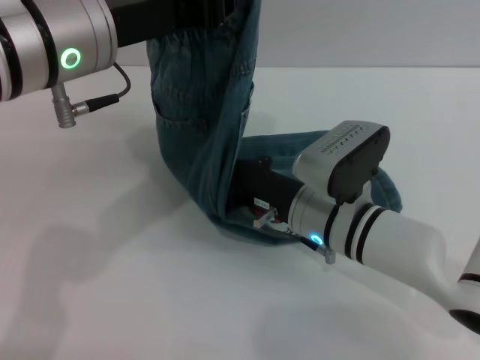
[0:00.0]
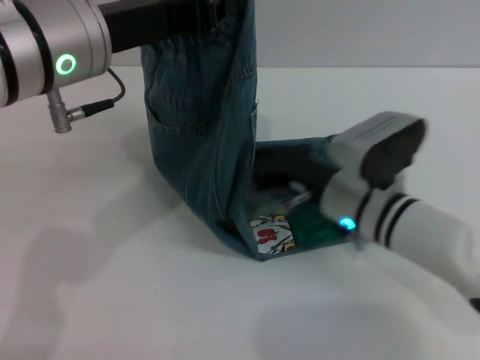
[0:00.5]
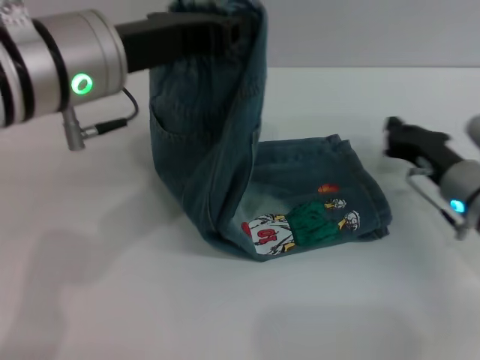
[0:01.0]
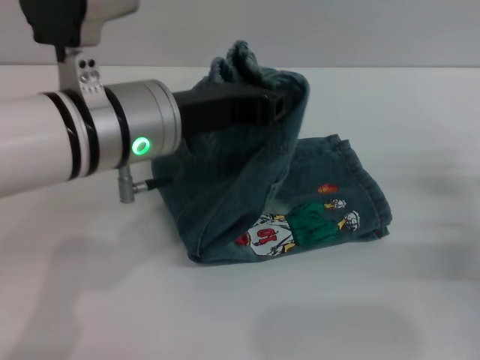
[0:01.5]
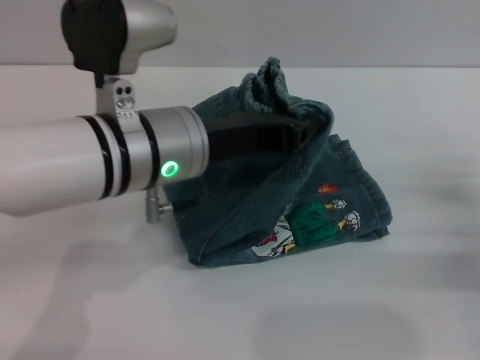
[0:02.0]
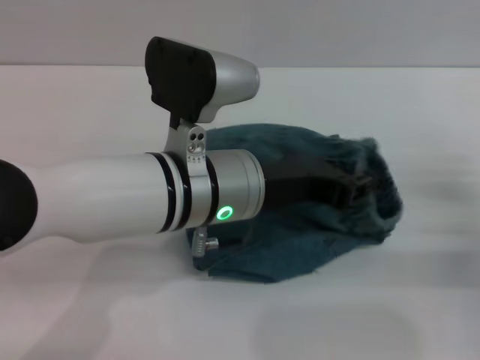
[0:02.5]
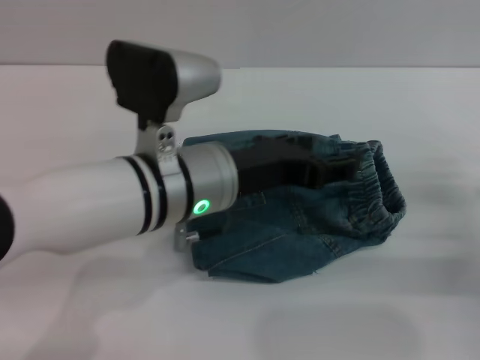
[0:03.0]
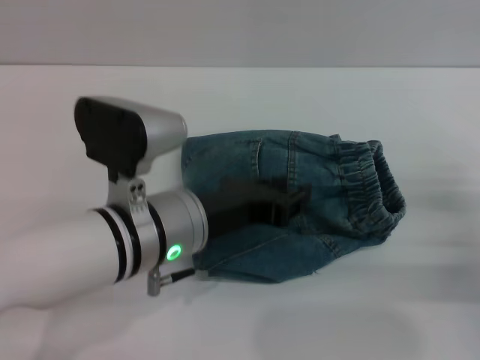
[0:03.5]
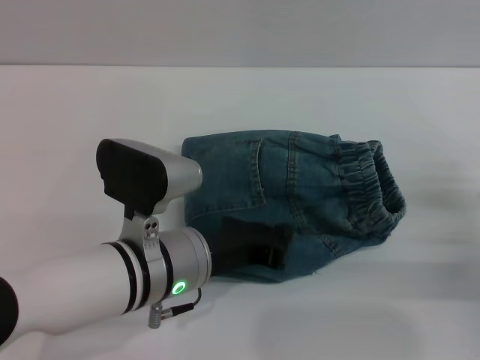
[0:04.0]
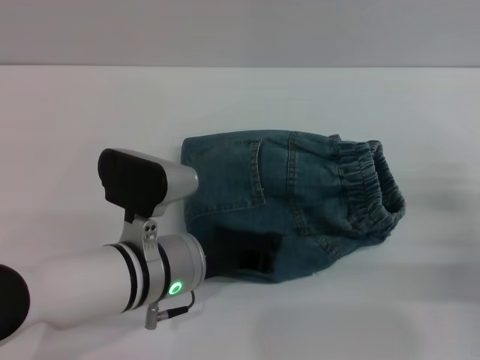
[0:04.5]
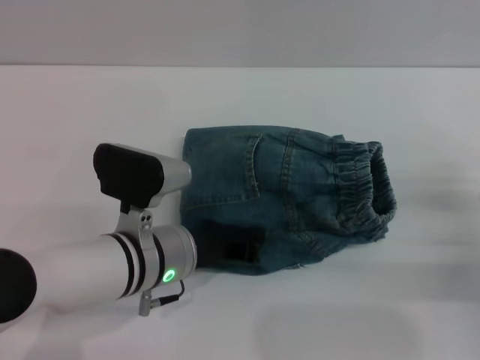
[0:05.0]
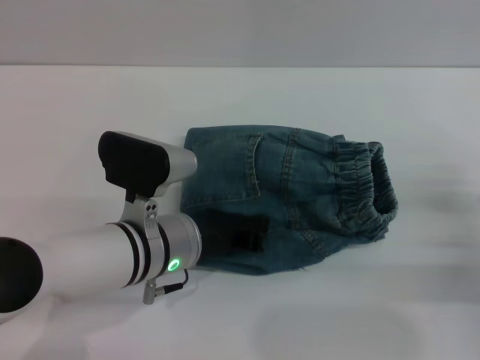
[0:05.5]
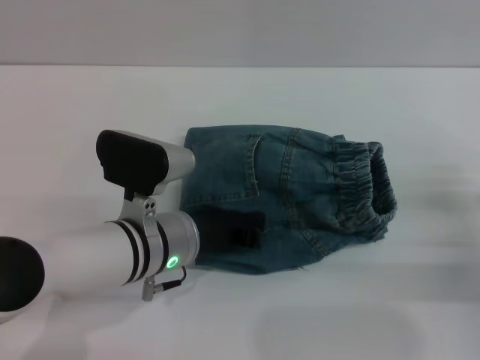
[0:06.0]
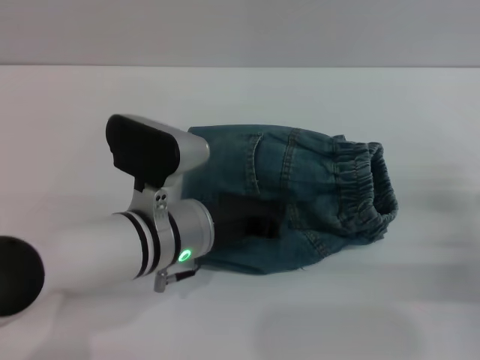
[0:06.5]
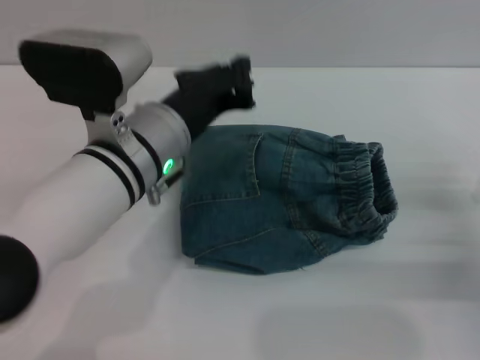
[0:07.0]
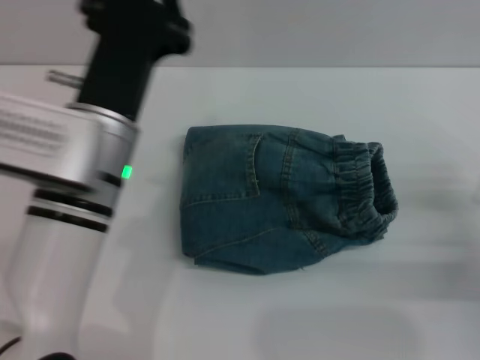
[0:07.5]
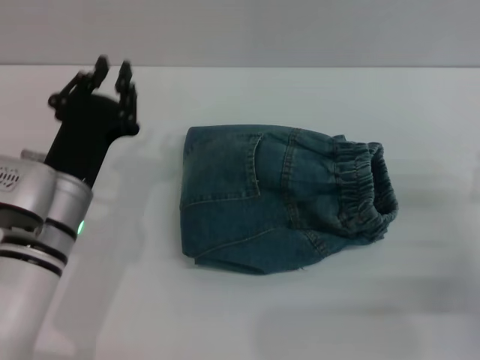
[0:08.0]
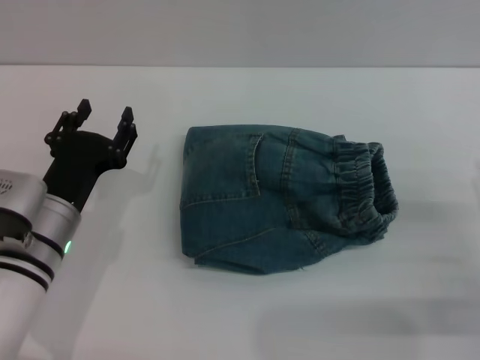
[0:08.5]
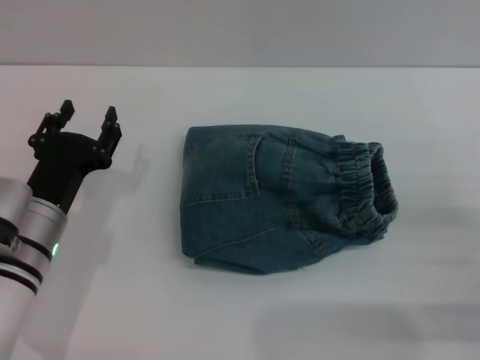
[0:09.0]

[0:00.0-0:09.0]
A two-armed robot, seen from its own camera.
Step, 0:00.0 to 0:03.0: Fold the pants from left to right with the left gripper.
0:00.0 to 0:02.0: The right gripper moves to the right, roughly 25 cm, while the left gripper heads downward, covering about 10 cm.
0:02.0 to 0:04.5: The left gripper is displaced downward by roughly 10 cm, and opens, then closes again.
0:04.5 to 0:07.0: The left gripper goes about 10 cm upward and forward.
0:07.0 to 0:09.0: The right gripper opens up; the left gripper heads to the left and downward, covering some 15 cm, and opens up.
